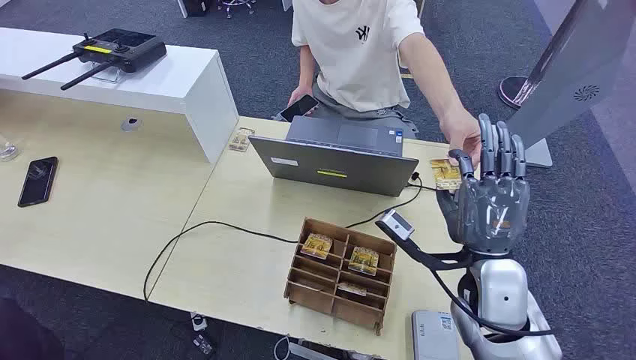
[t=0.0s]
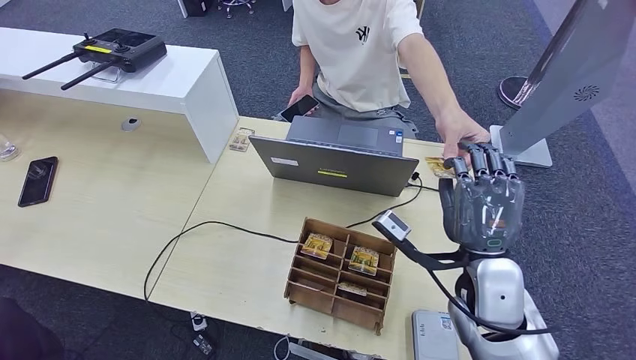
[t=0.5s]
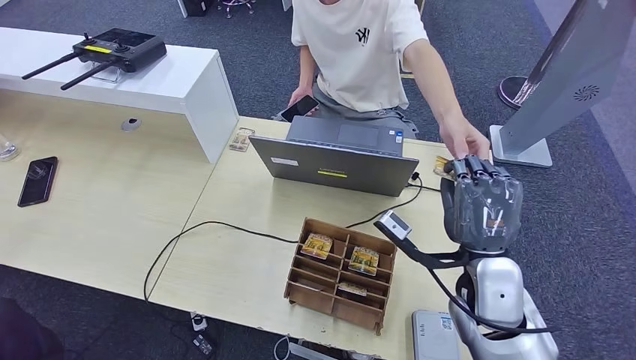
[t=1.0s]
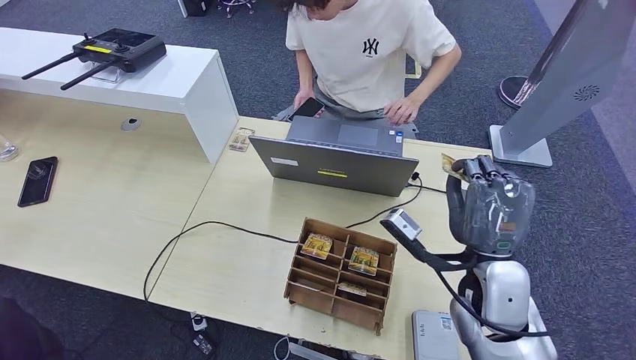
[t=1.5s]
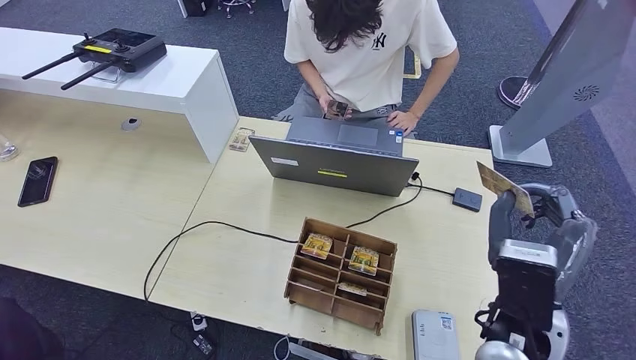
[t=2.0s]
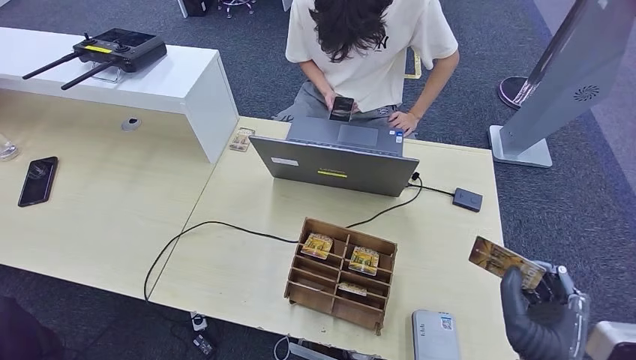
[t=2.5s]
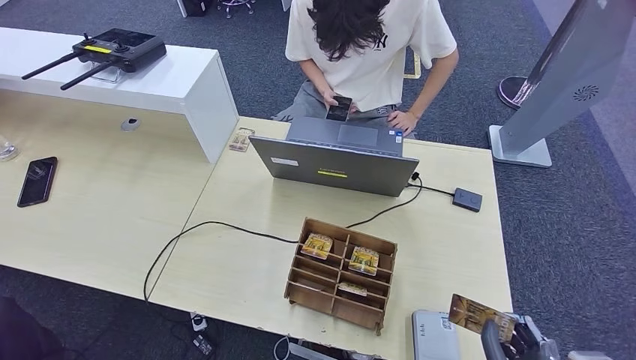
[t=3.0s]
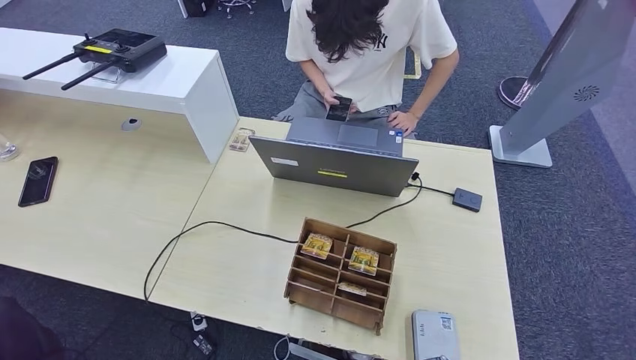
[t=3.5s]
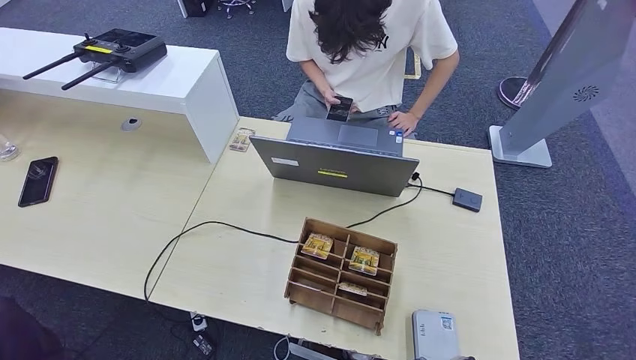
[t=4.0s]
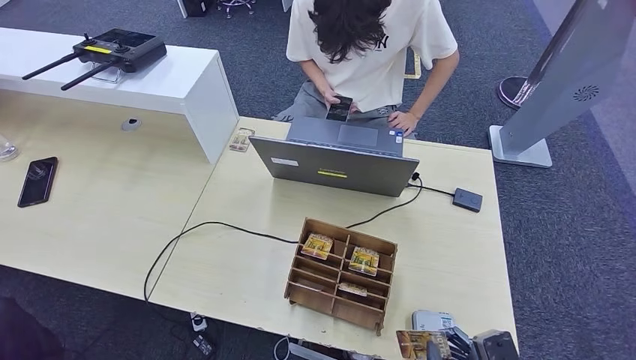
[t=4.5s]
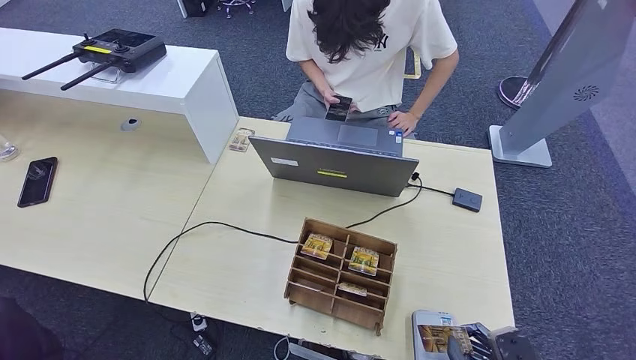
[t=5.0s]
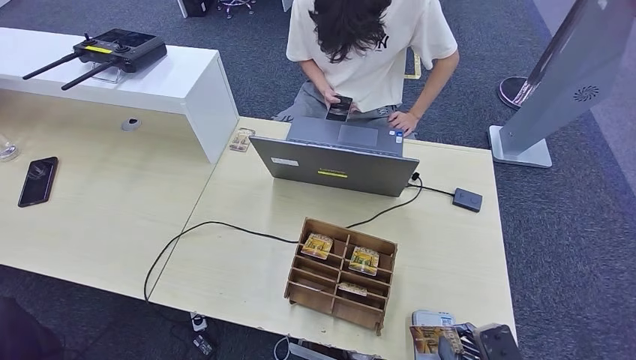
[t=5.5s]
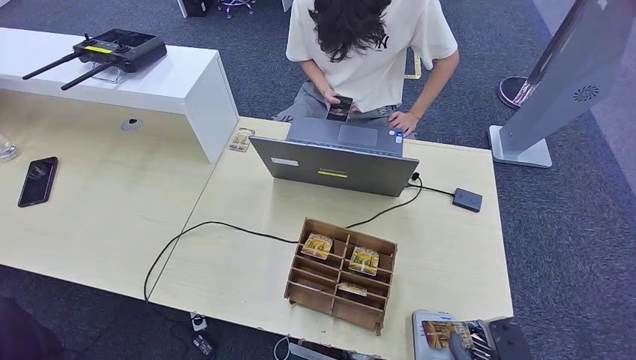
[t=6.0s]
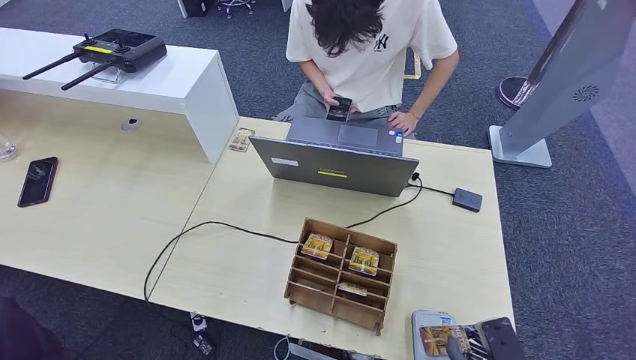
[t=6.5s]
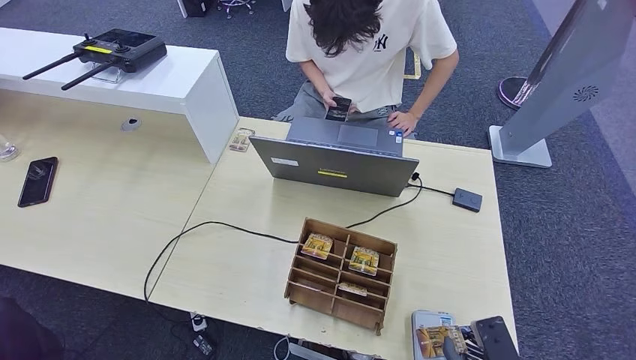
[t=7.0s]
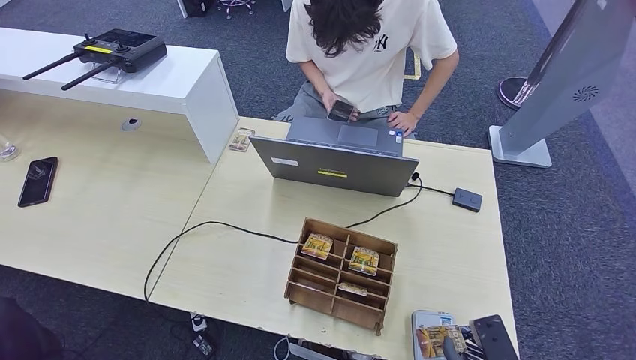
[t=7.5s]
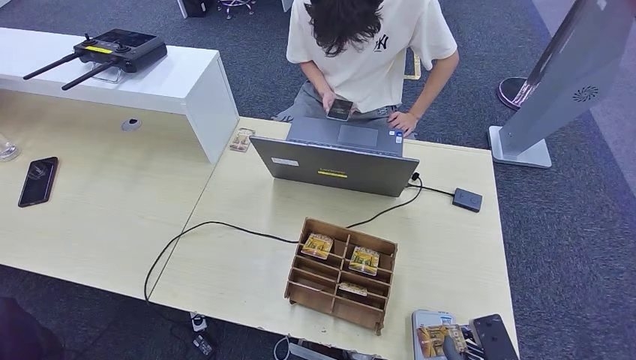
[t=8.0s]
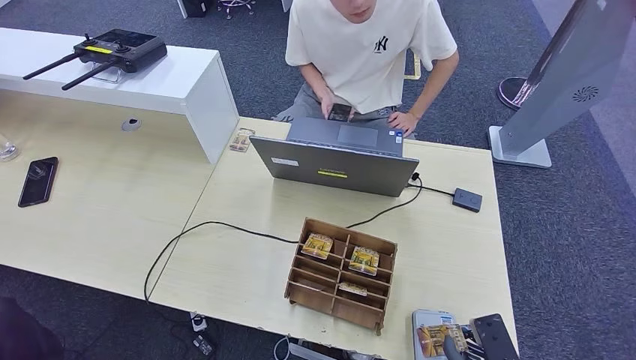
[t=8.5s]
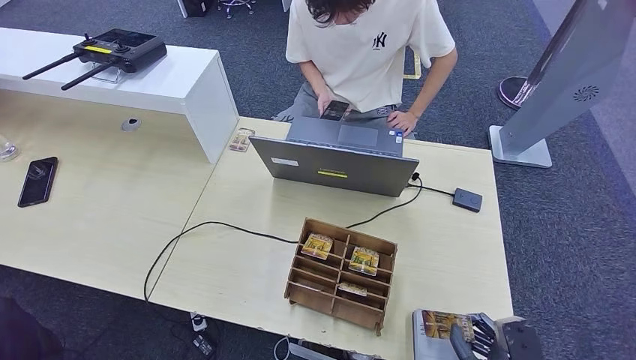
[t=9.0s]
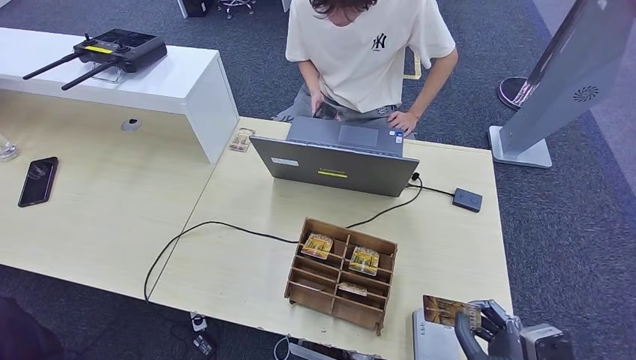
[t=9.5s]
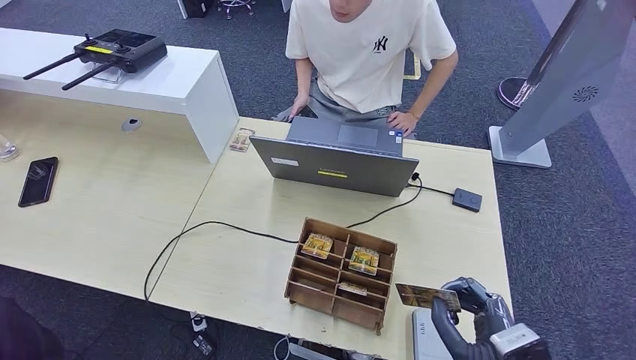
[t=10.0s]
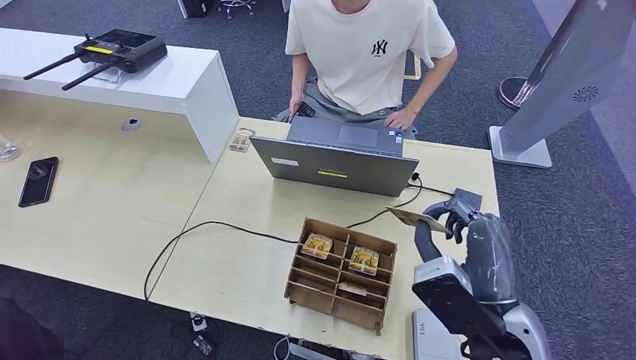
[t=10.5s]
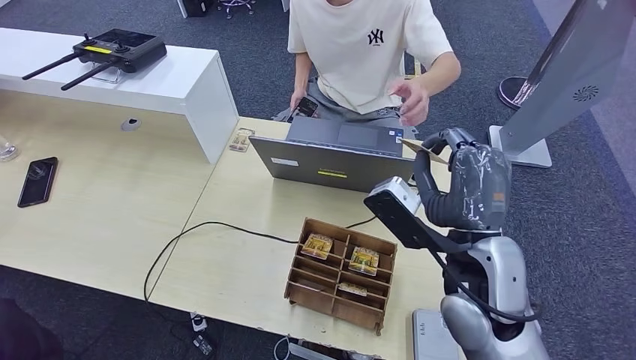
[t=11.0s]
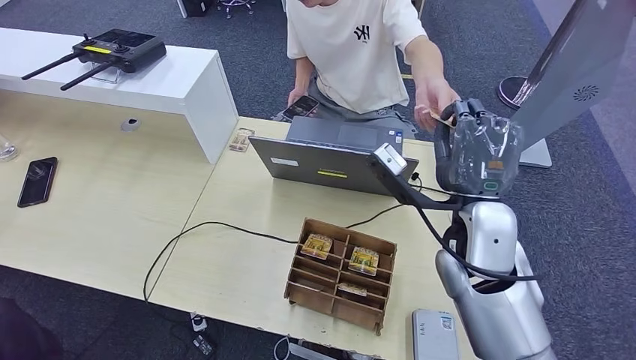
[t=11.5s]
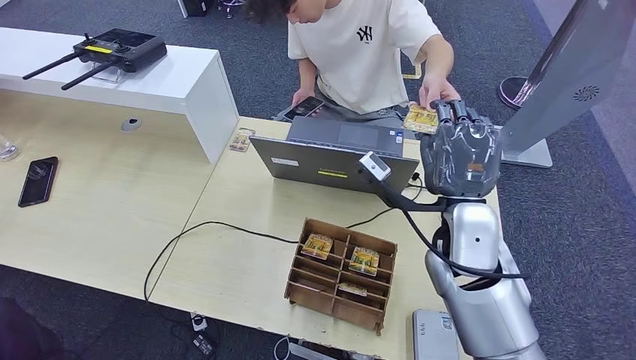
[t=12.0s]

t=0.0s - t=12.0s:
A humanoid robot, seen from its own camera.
Step, t=0.0s - t=2.0s: Take the ID card from the person's hand.
Step, t=2.5s - t=9.5s: Place the ID card on the card reader.
t=2.0s - t=4.0s: The right hand heads backward and downward, covering about 25 cm.
t=4.0s - t=6.0s: The right hand is displaced forward and to the right by approximately 10 cm.
t=6.0s - t=8.0s: There are only small adjustments of the hands.
t=8.0s - t=10.0s: The right hand moves upward, approximately 10 cm.
t=10.0s - t=12.0s: The right hand travels forward, upward and to the left by some 25 cm; the left hand travels forward by about 5 cm.

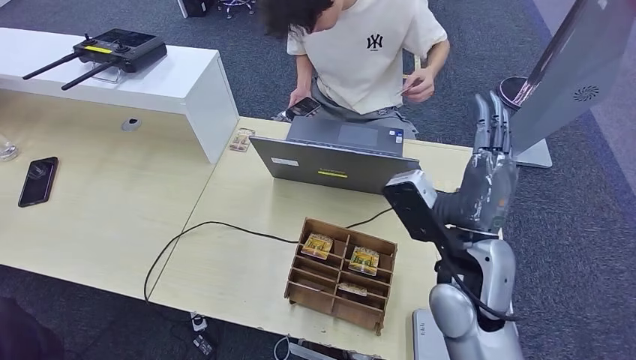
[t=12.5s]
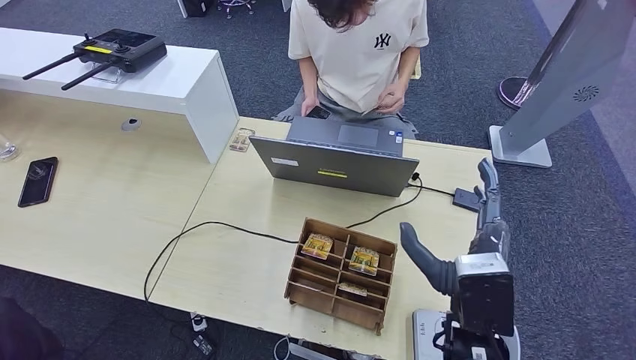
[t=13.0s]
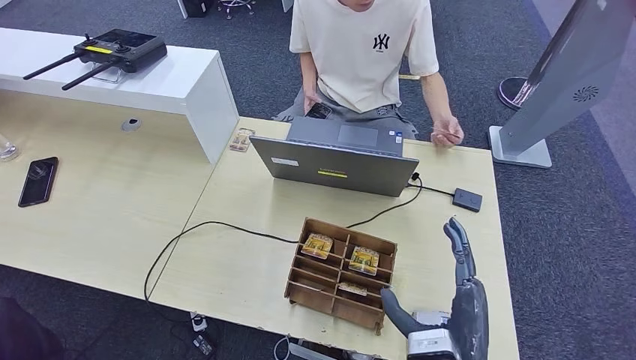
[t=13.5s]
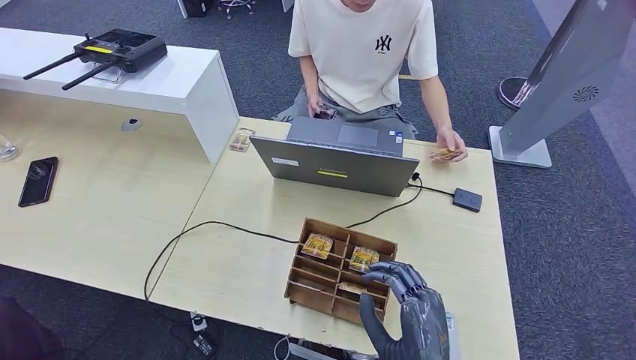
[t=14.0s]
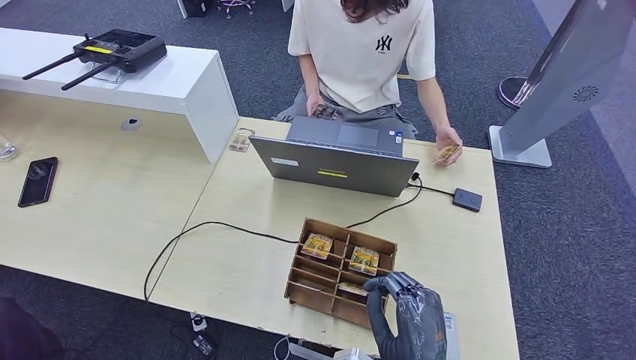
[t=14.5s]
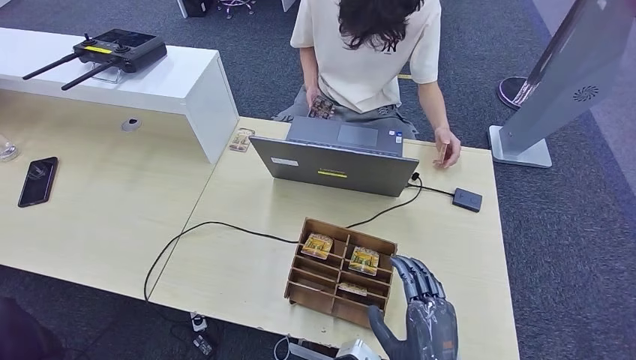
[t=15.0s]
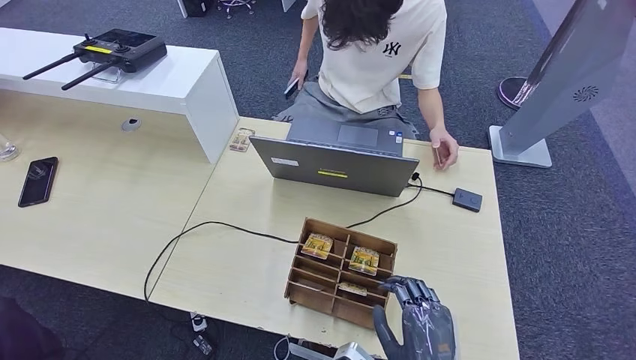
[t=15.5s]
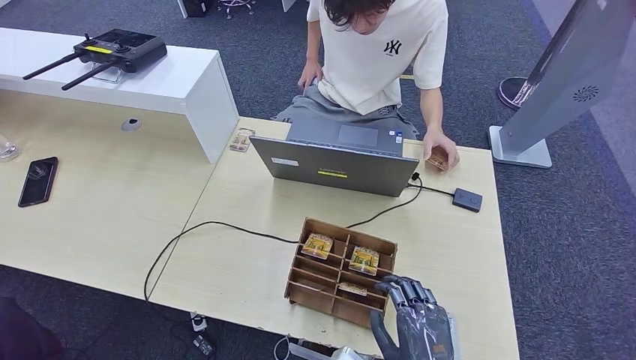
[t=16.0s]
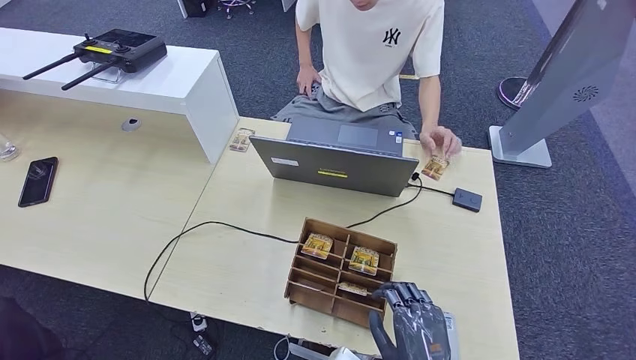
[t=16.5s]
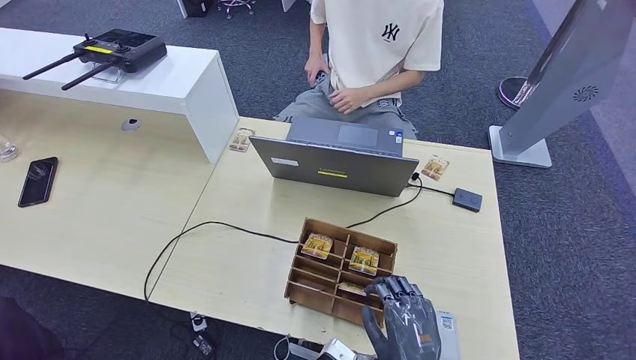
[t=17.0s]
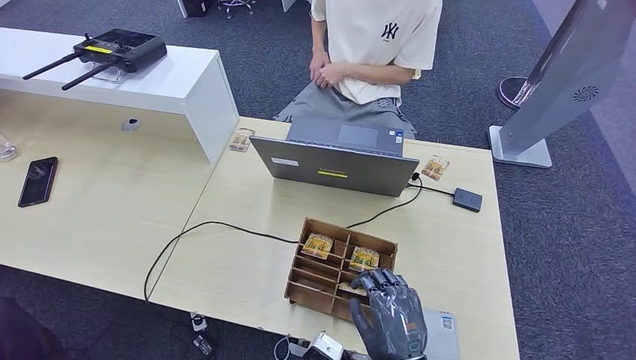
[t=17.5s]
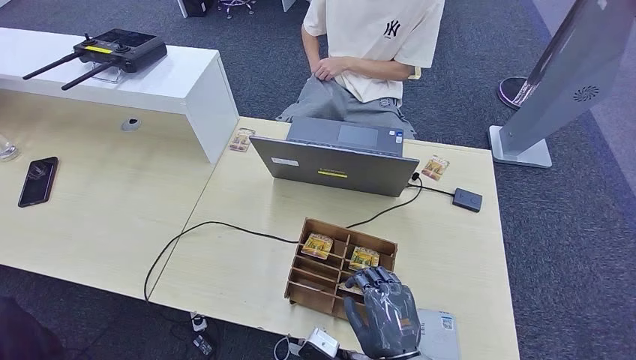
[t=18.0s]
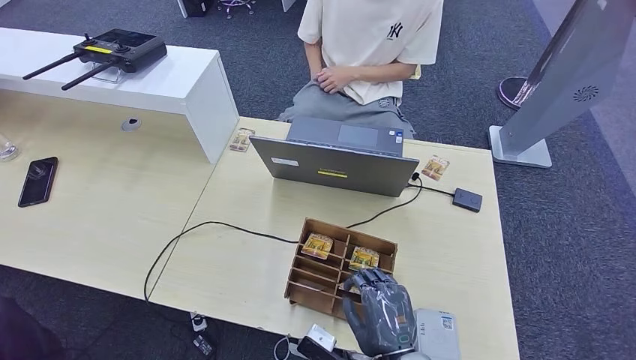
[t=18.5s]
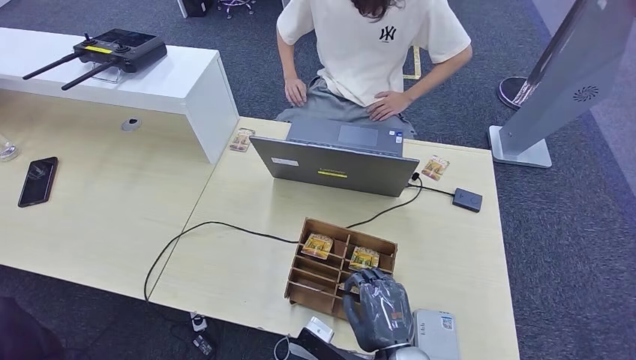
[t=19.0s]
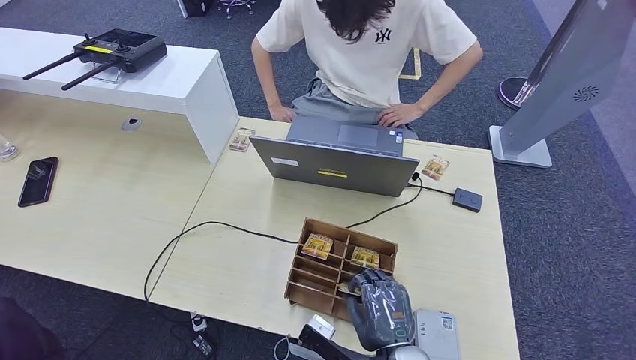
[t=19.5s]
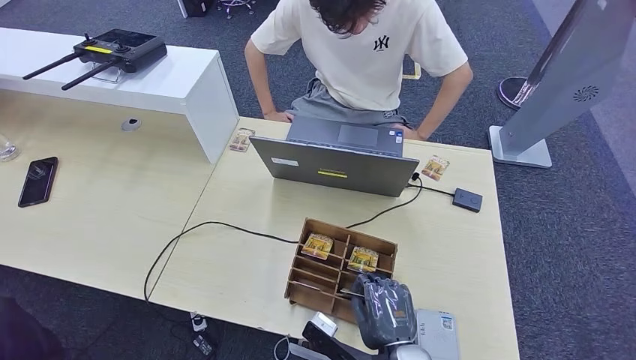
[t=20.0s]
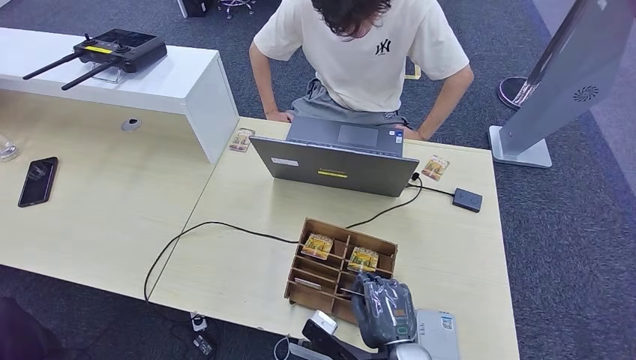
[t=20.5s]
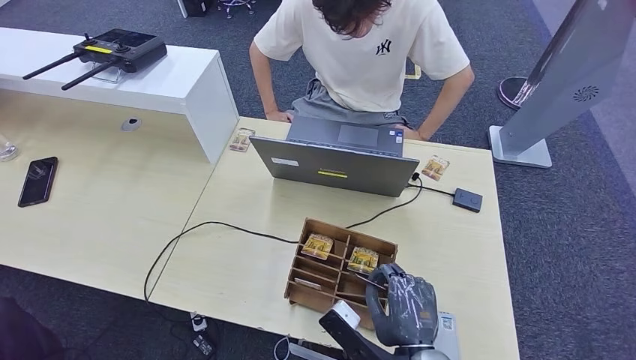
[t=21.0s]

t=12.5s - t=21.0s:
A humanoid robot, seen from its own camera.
t=12.5s - t=14.5s: The right hand is displaced backward and downward by roughly 20 cm.
t=14.5s - t=16.5s: The hands move only a little.
t=16.5s - t=19.0s: The right hand moves roughly 5 cm.
t=19.0s - t=21.0s: There are only small adjustments of the hands.
